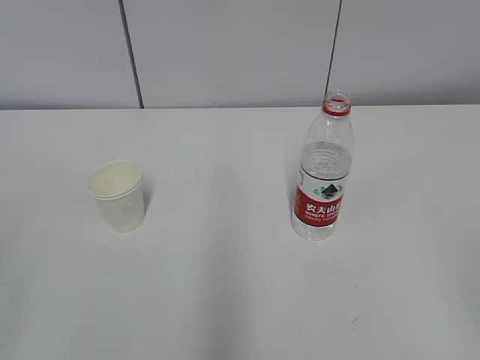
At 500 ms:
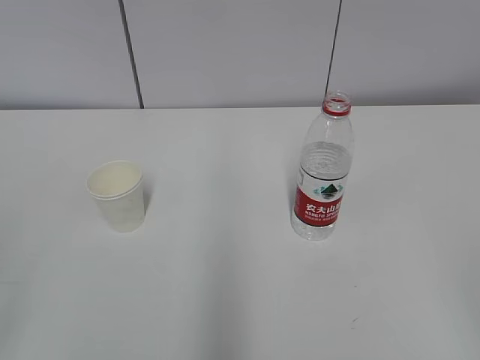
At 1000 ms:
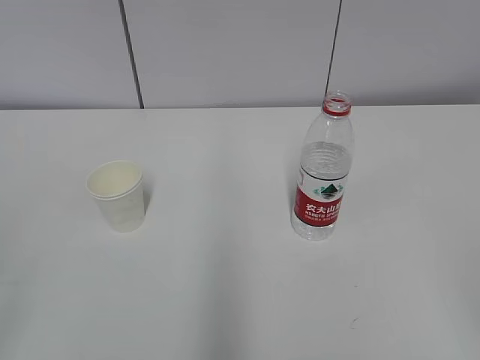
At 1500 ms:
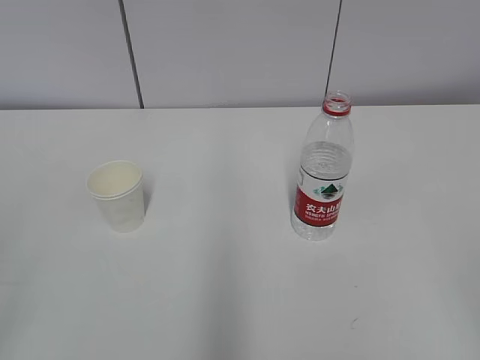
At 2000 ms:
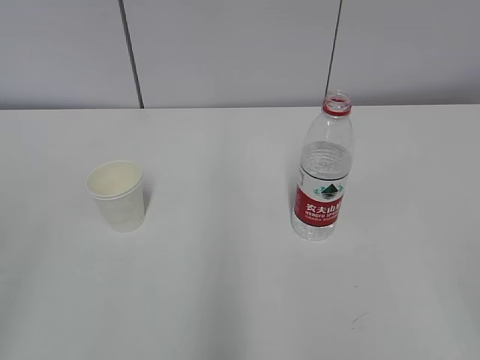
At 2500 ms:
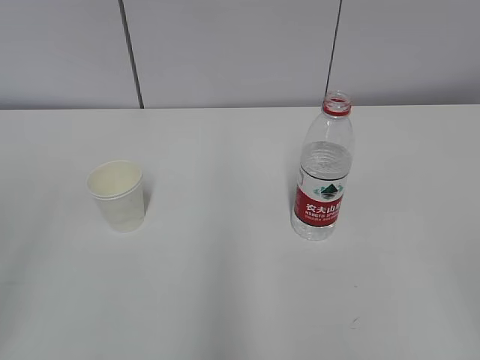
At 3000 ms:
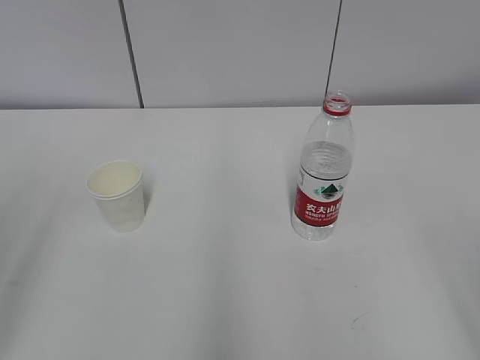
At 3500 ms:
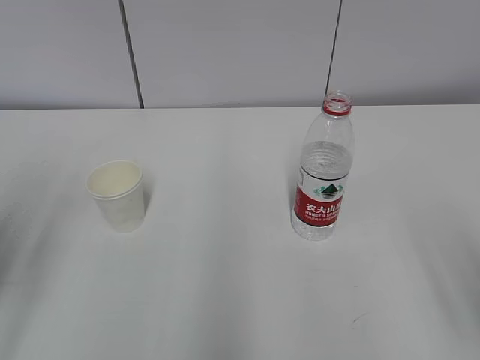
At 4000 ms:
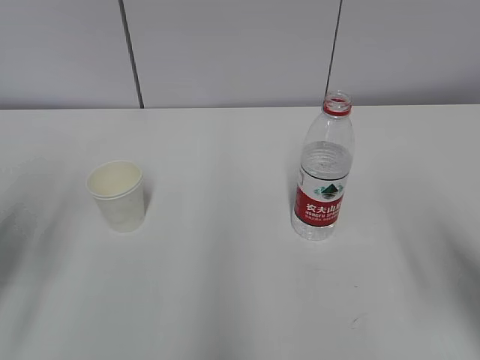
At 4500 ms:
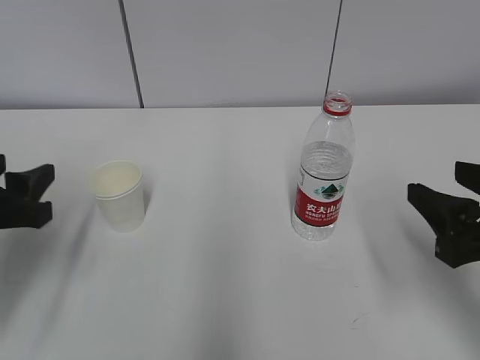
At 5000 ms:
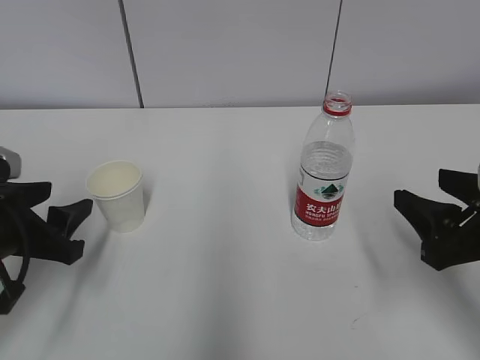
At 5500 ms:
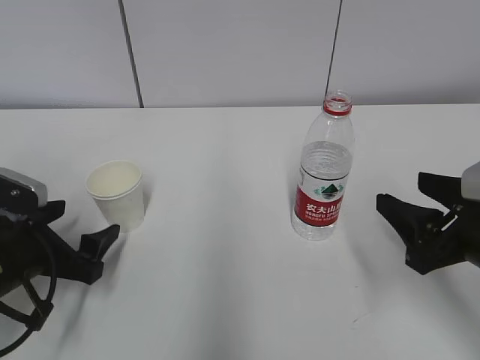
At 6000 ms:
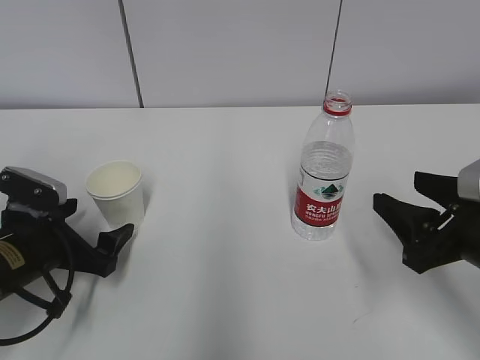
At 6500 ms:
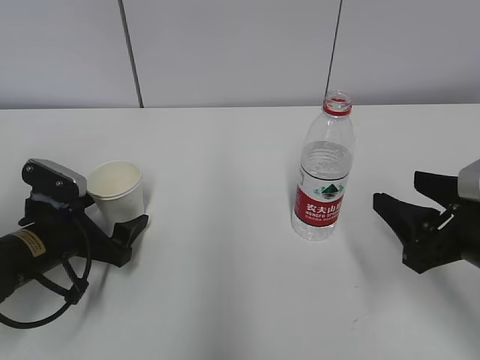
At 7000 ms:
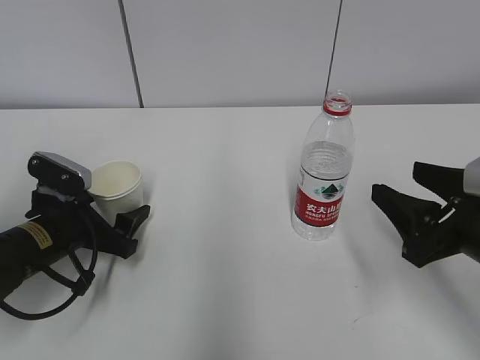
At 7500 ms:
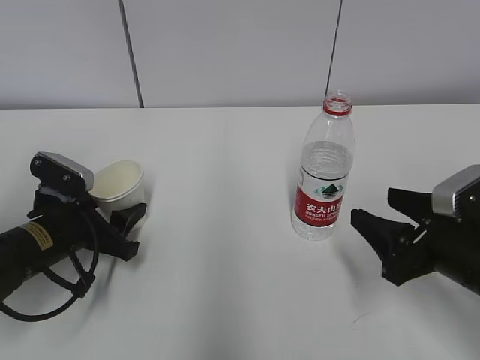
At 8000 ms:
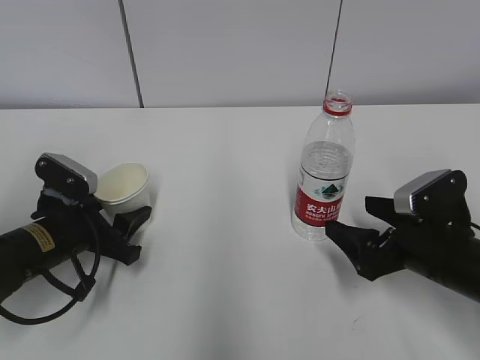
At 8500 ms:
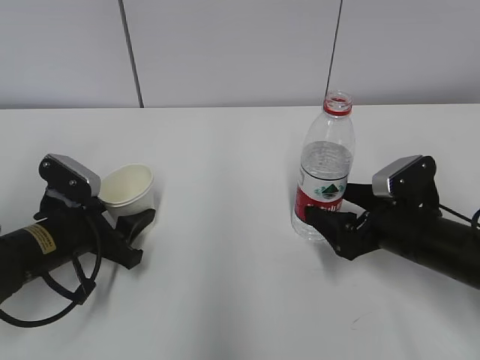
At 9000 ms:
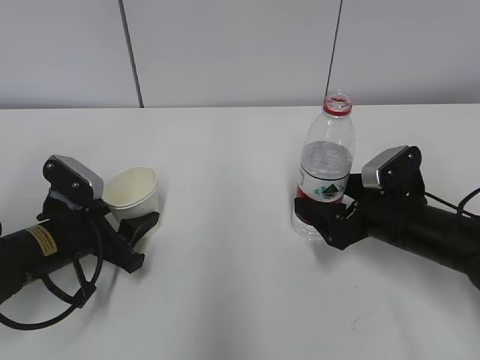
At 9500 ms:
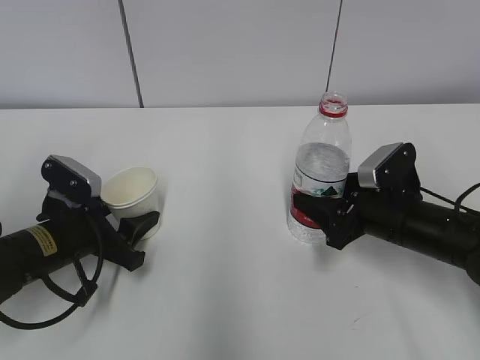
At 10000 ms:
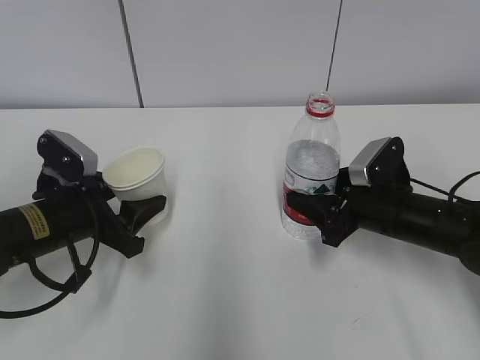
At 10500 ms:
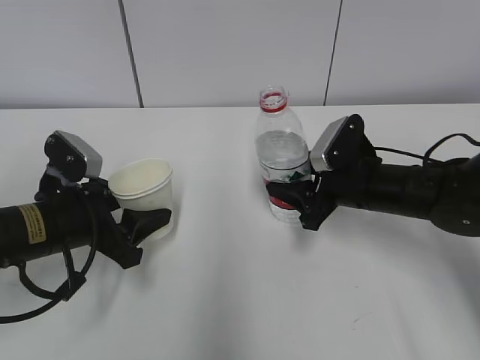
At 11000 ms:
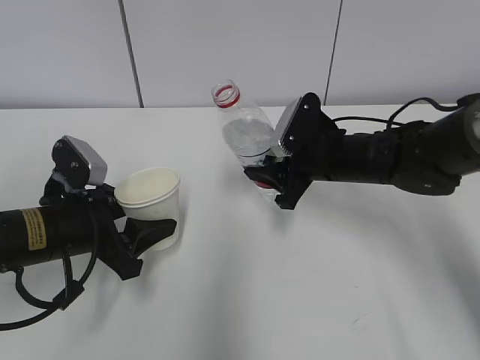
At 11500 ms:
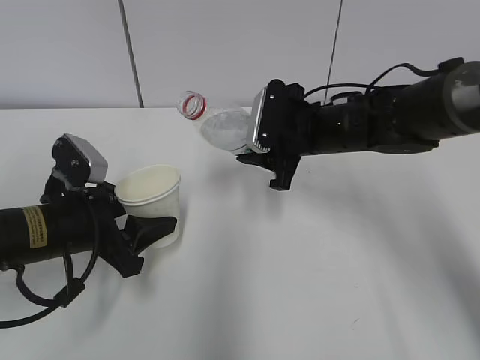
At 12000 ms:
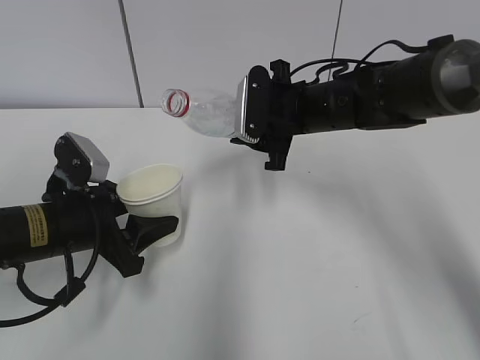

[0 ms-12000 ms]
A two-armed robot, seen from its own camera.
Step, 0 ms to 6000 ms: Grab the paper cup with the left hand.
Step, 6500 ms to 8000 ms: Grab the water bottle with the right hand.
Step, 8500 ms to 11500 ms: Lift the paper cup with the left hand.
2000 ms to 4000 ms: The right gripper travels forward by about 15 cm; the left gripper goes roughly 20 cm forward and downward.
4000 ms to 6000 ms: The left gripper shifts some 15 cm downward and forward, and opens. Meanwhile the right gripper is displaced downward and forward by roughly 10 cm.
6000 ms to 8000 ms: The right gripper heads downward, covering roughly 5 cm, and opens. The left gripper closes.
8000 ms to 10000 ms: The right gripper heads forward, covering approximately 5 cm, and closes its fingers.
10000 ms to 12000 ms: The right gripper shifts approximately 15 cm upward, to the left and forward.

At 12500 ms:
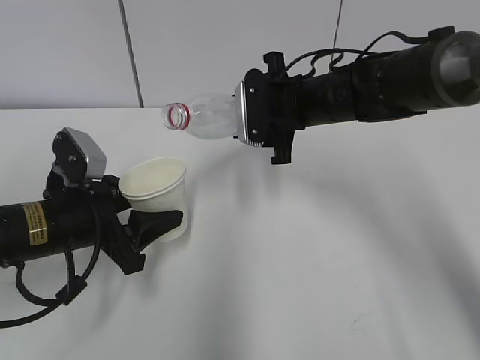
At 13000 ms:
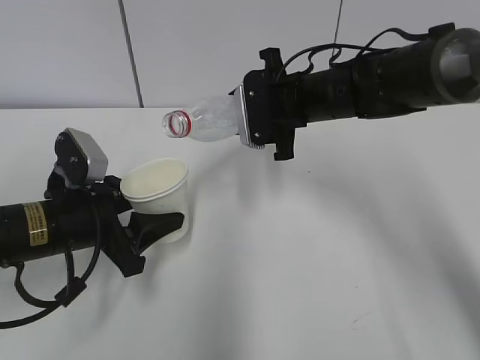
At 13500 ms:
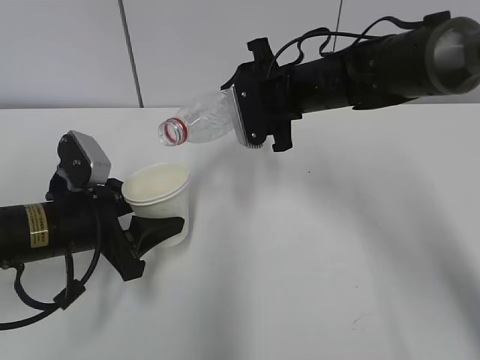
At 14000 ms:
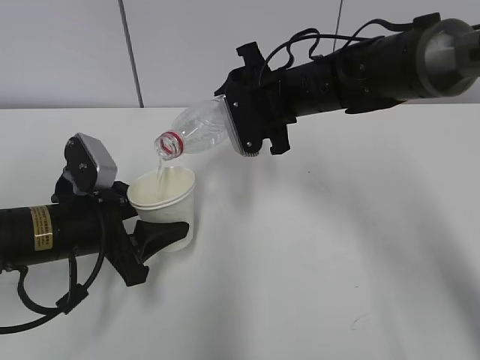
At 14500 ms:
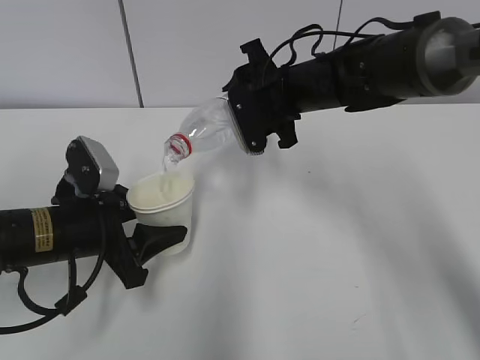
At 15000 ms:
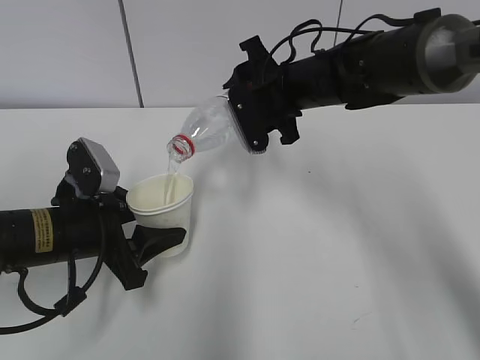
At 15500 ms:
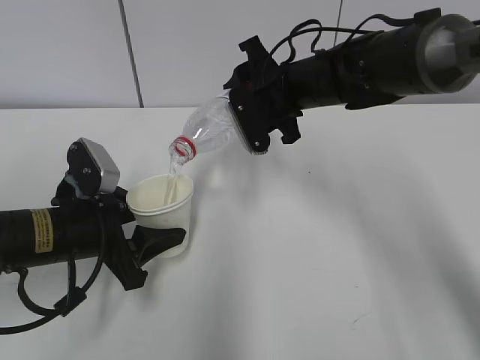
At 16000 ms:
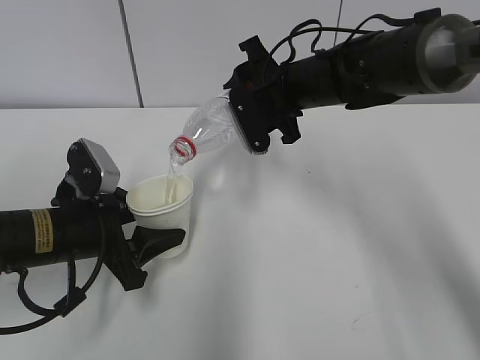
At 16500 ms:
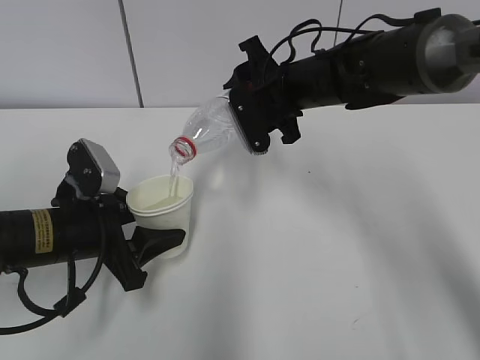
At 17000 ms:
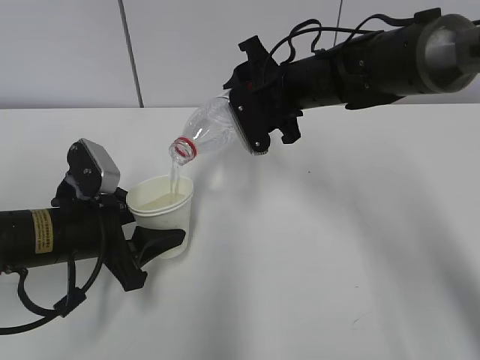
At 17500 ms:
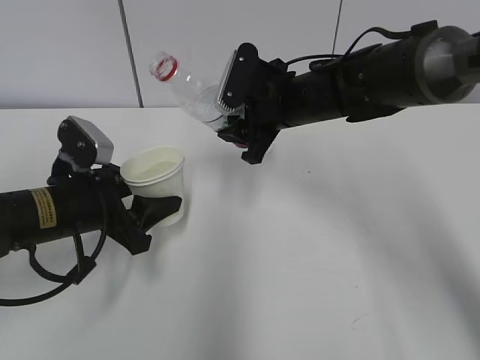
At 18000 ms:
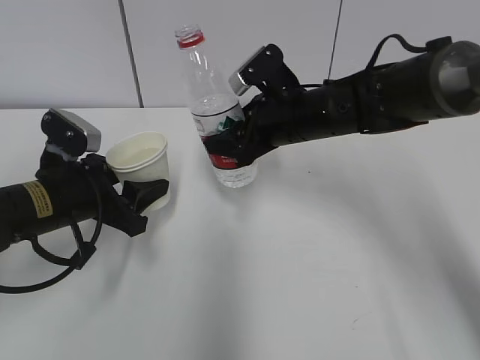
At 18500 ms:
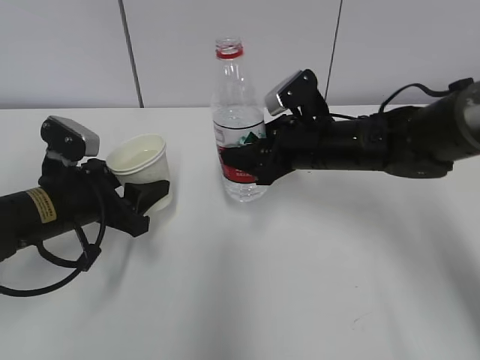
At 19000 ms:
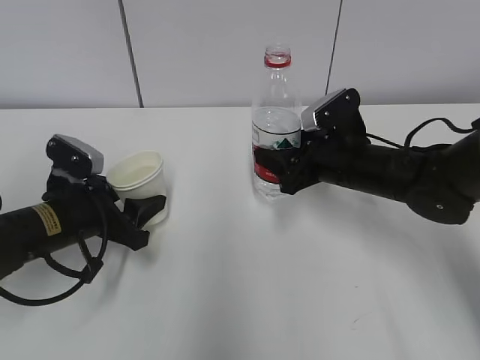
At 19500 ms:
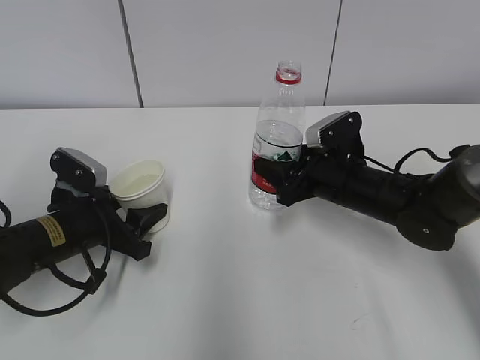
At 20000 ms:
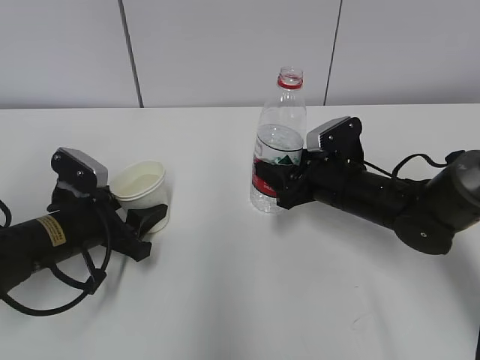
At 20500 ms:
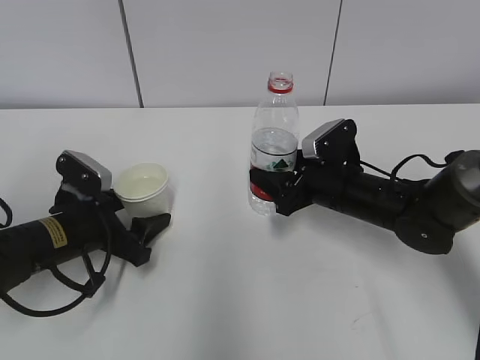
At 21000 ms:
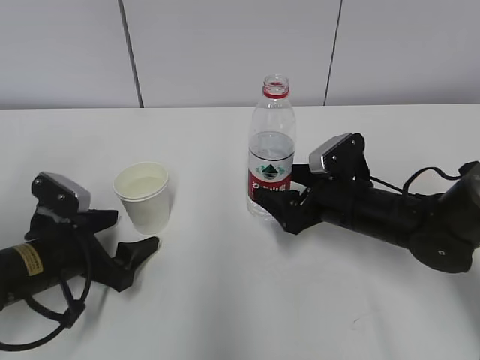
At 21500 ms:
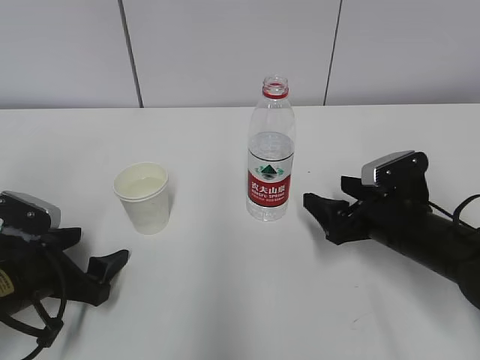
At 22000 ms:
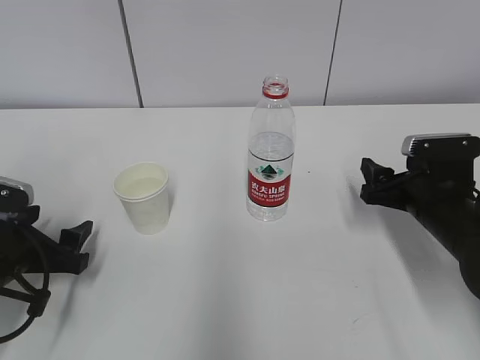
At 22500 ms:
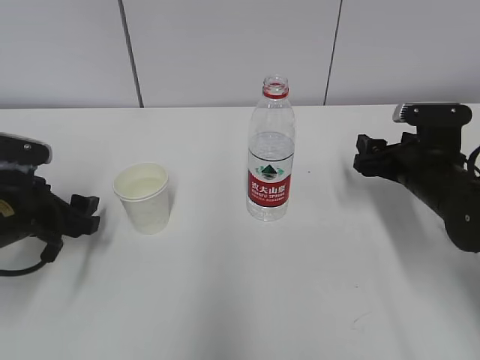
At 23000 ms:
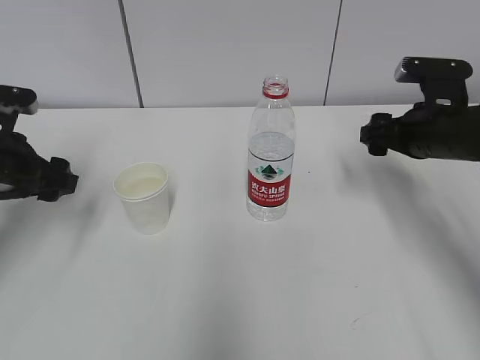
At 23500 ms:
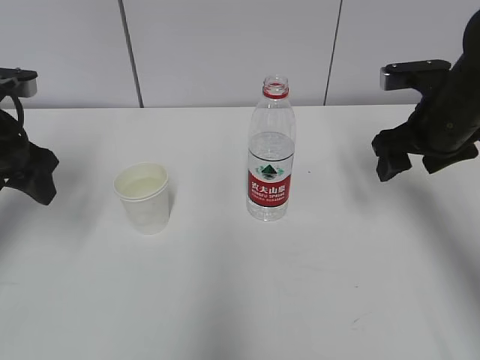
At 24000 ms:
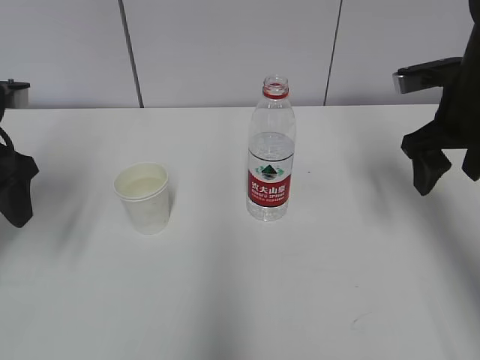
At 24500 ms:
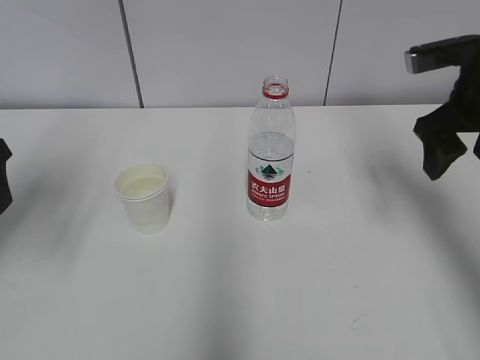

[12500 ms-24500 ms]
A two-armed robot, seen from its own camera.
Step, 12500 ms to 14000 ms: Fill water with the left hand.
Step, 12500 ms to 14000 ms: Pour water with the right hand.
Step, 14500 ms to 15000 ms: Collect water with the right hand.
14500 ms to 16500 ms: Both grippers stay put.
16500 ms to 18500 ms: The right gripper heads downward, covering approximately 5 cm.
18500 ms to 20500 ms: The right gripper goes about 5 cm downward.
20500 ms to 22500 ms: The left gripper travels to the left by about 5 cm, while the right gripper is displaced to the right by some 10 cm, and opens its fingers.
22500 ms to 24500 ms: Both grippers travel together upward, roughly 15 cm.

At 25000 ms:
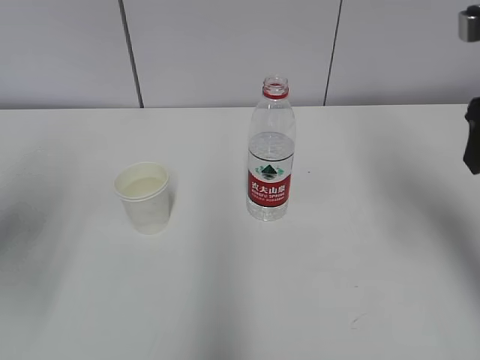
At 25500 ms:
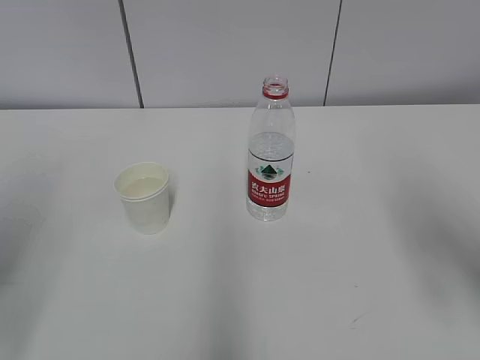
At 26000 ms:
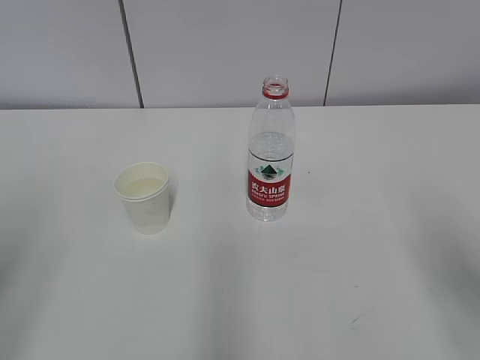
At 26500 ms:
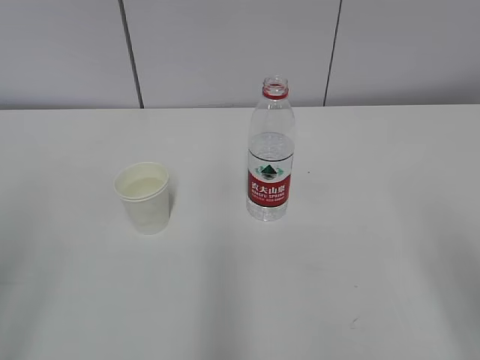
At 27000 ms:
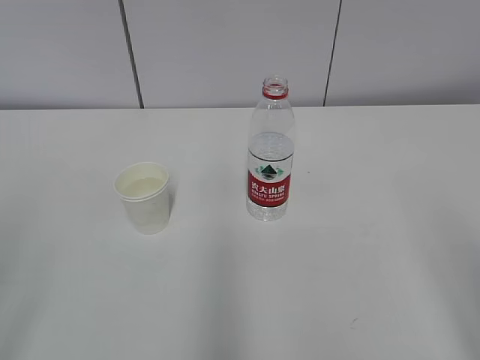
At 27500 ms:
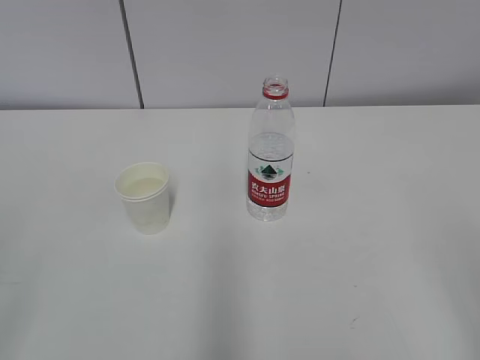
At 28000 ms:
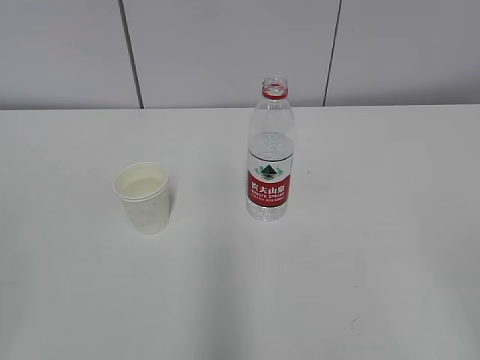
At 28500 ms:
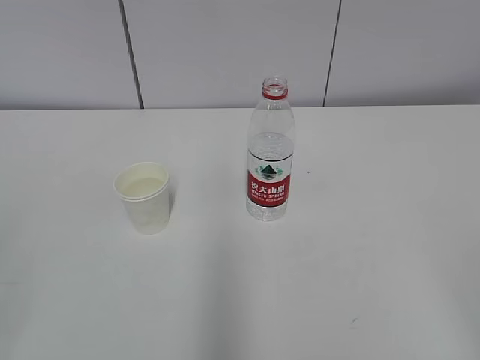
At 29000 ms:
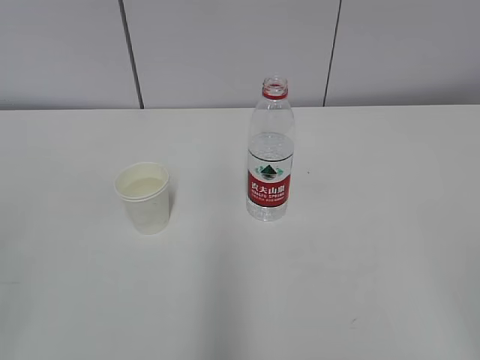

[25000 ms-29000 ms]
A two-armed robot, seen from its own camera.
25000 ms to 27000 ms: The two grippers go roughly 20 cm backward.
